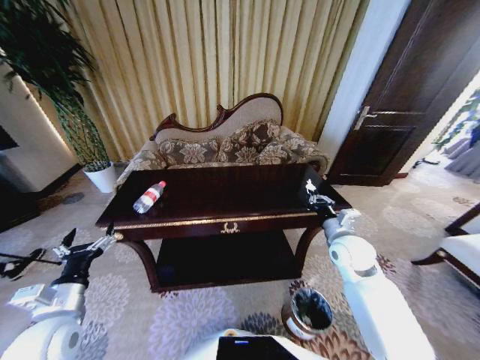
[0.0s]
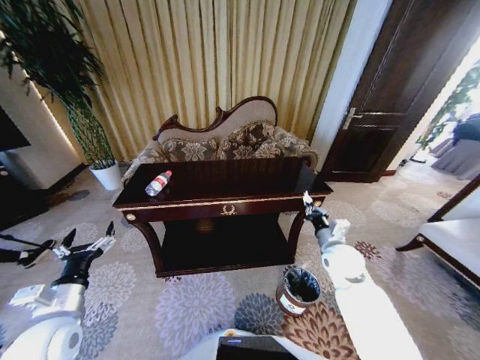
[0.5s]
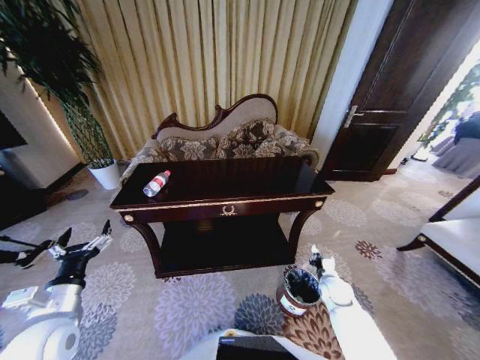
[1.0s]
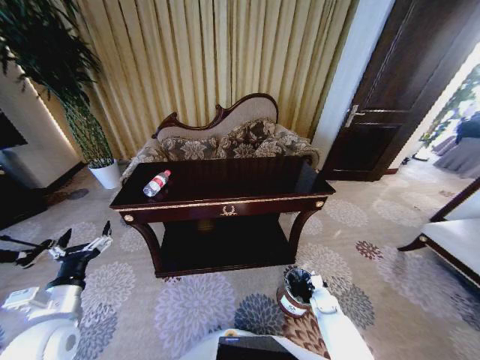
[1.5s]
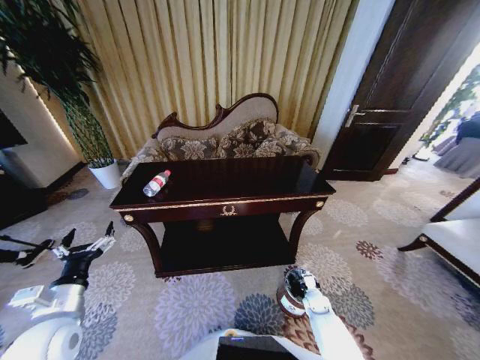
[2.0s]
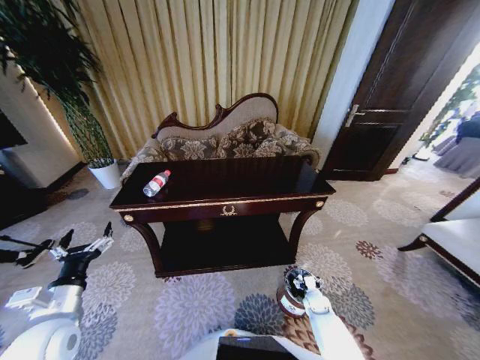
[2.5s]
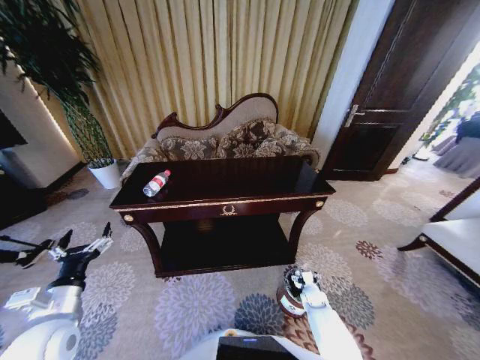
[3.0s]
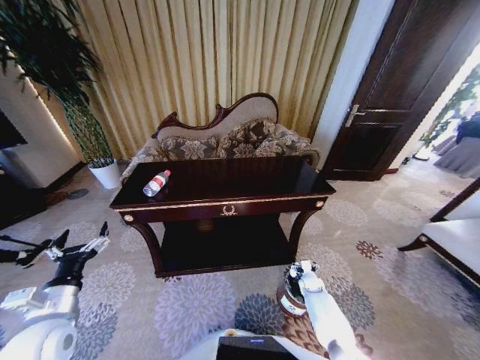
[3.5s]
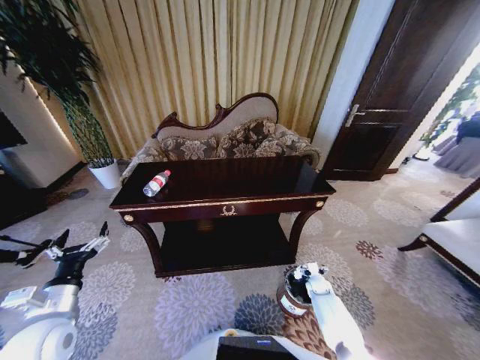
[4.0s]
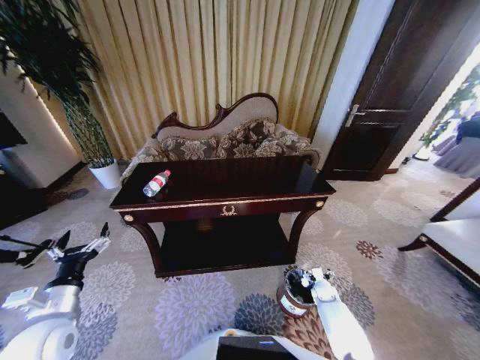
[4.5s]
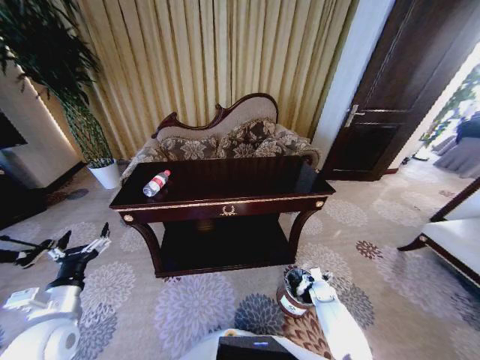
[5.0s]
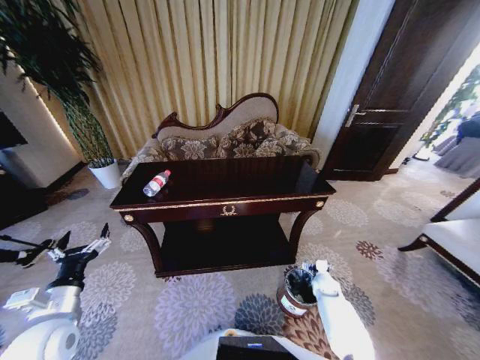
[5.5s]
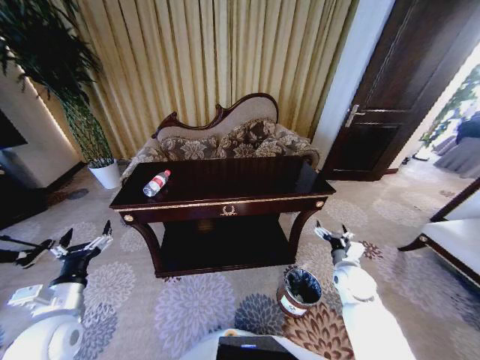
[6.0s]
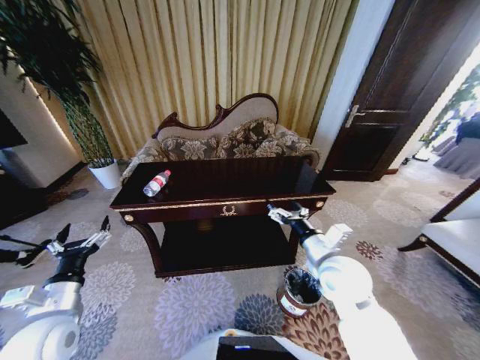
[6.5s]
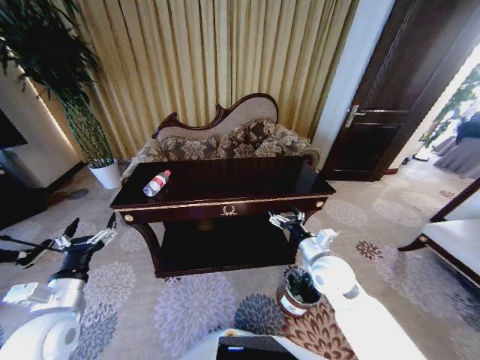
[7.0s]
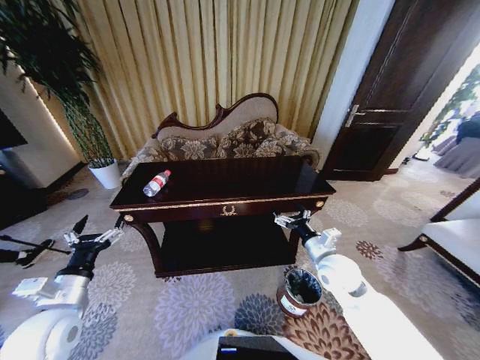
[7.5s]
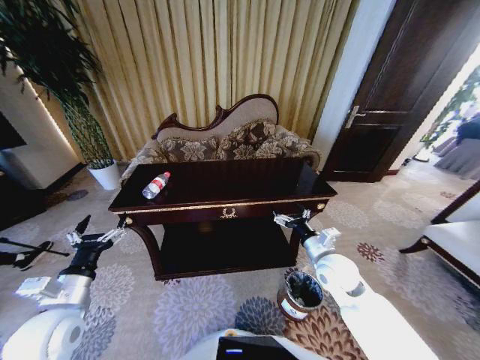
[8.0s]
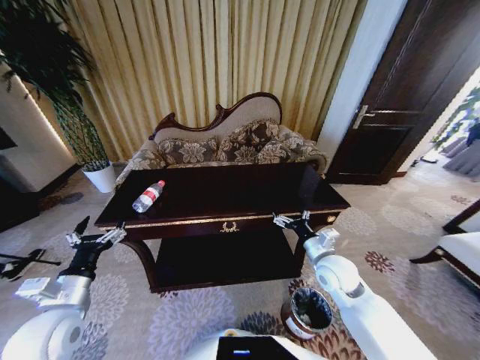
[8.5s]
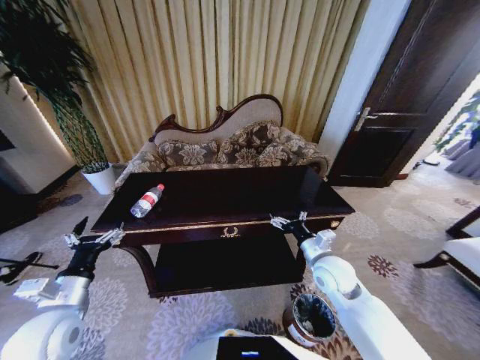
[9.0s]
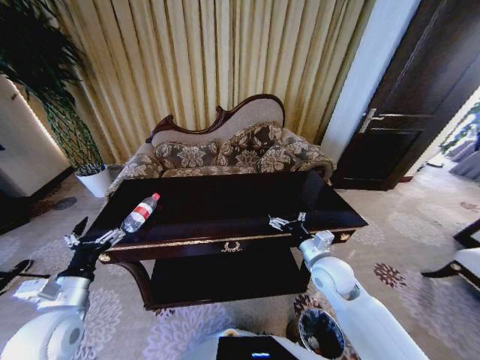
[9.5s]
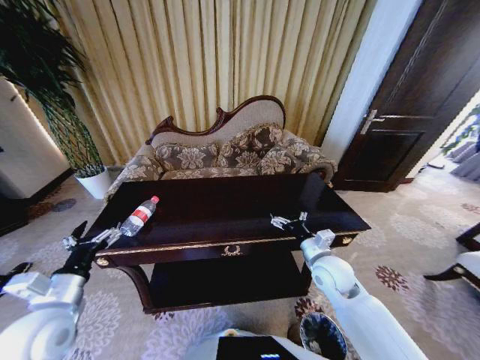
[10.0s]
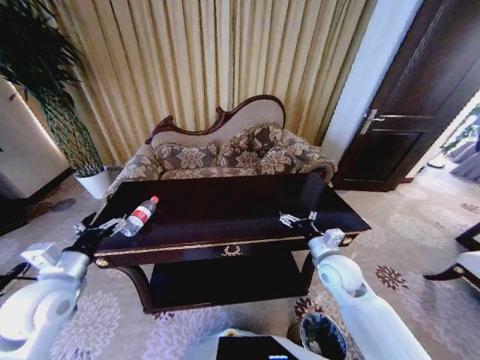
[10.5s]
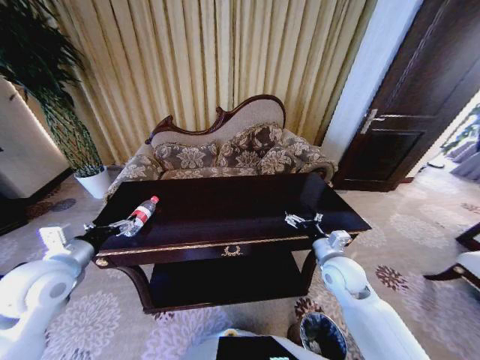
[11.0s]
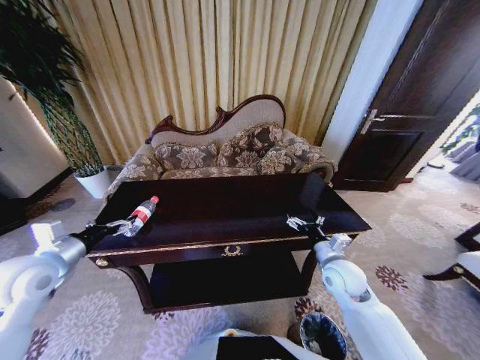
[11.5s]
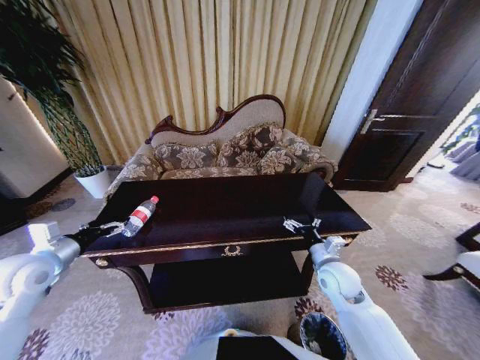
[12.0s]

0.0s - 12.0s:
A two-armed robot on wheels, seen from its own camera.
Task of the whole recording: Move to the front of the table and place the trash on the table into the trash bin.
0.0s - 2.0s: The right gripper heads downward, covering about 35 cm.
2.0s - 4.0s: The right gripper heads forward, covering about 5 cm, and opens up.
4.0s - 6.0s: The right gripper is displaced upward by approximately 20 cm.
6.0s - 8.0s: The right gripper goes approximately 15 cm to the left and upward.
10.0s - 12.0s: The left gripper heads forward and to the left, covering roughly 15 cm.

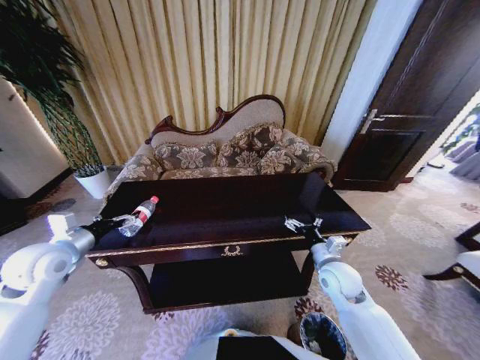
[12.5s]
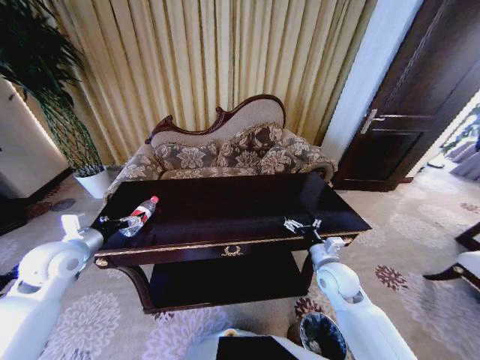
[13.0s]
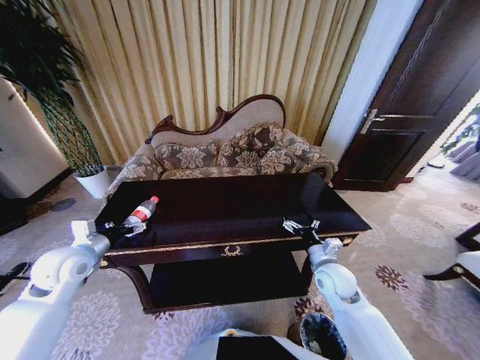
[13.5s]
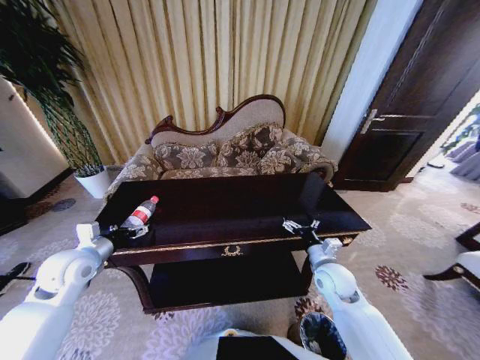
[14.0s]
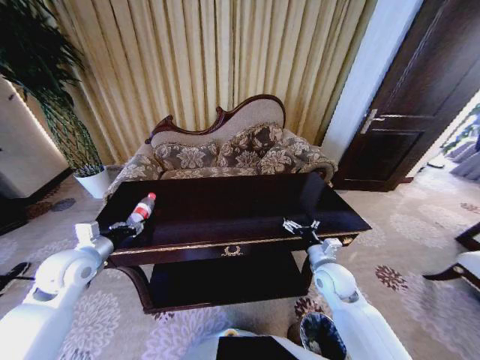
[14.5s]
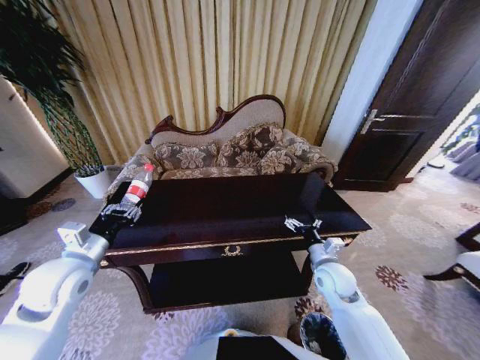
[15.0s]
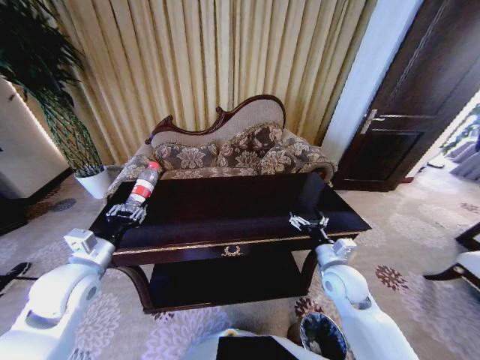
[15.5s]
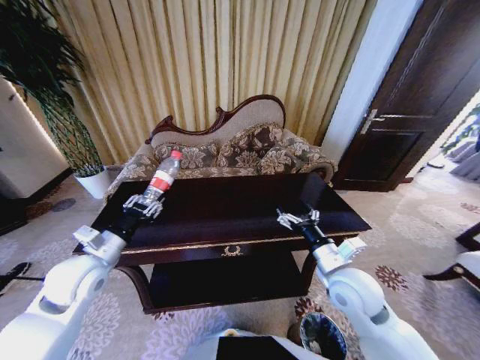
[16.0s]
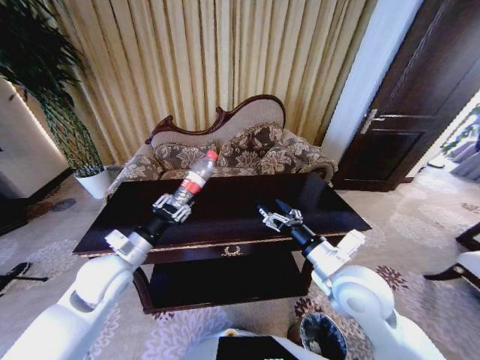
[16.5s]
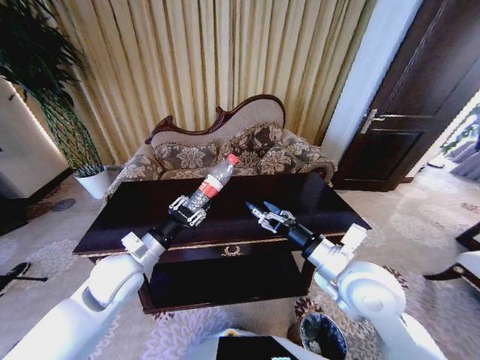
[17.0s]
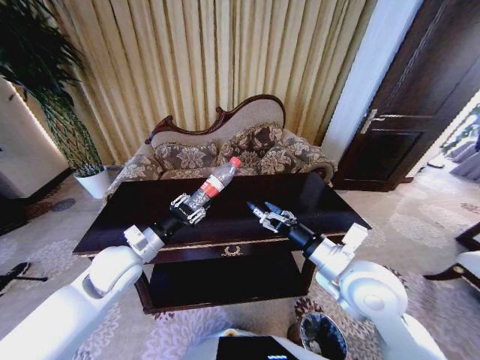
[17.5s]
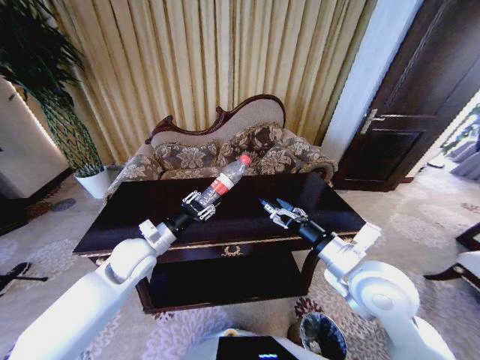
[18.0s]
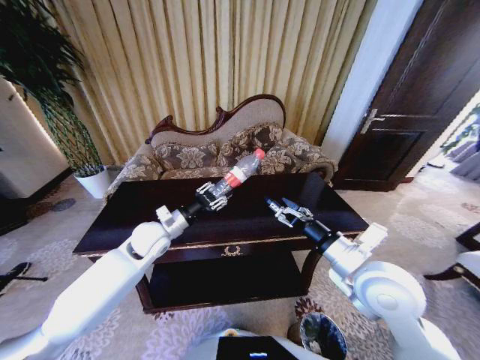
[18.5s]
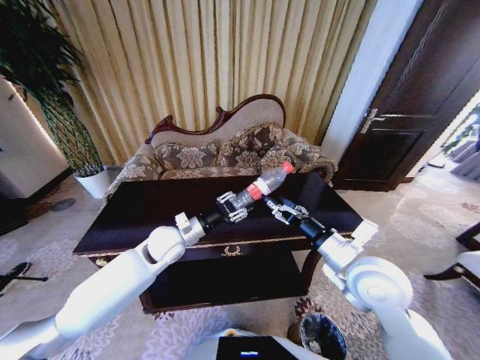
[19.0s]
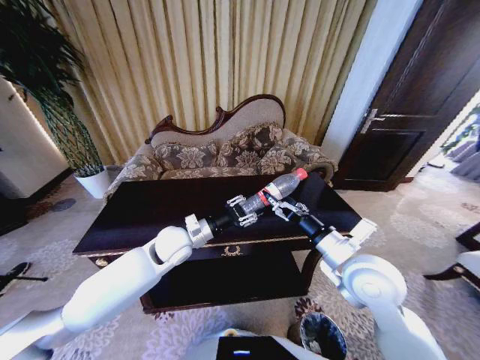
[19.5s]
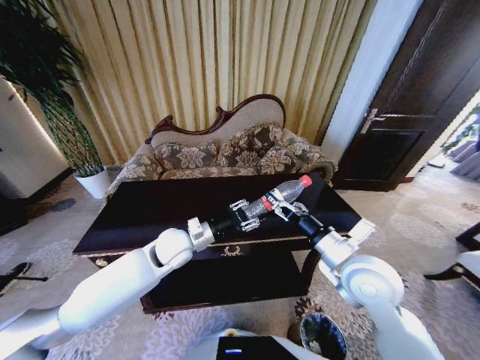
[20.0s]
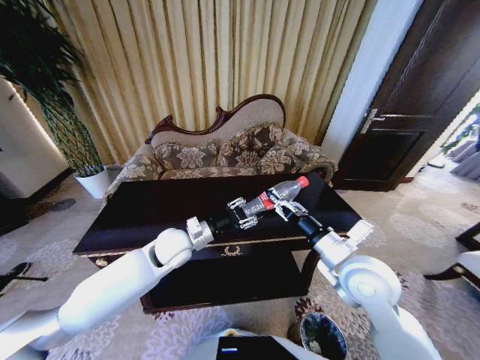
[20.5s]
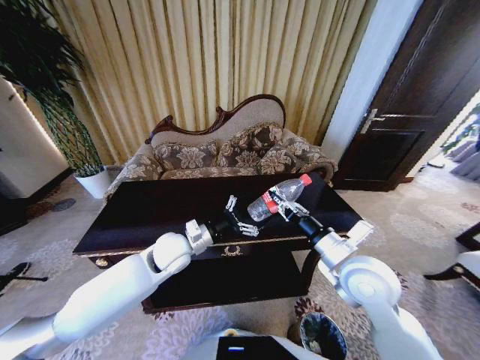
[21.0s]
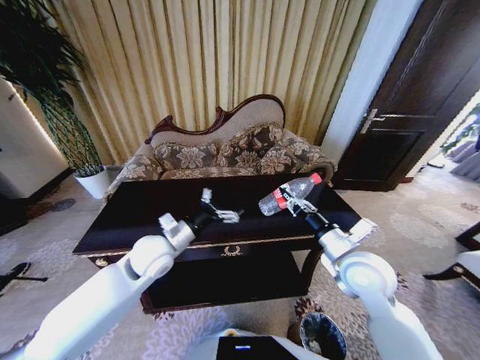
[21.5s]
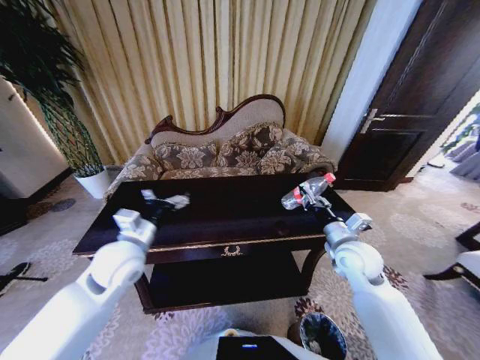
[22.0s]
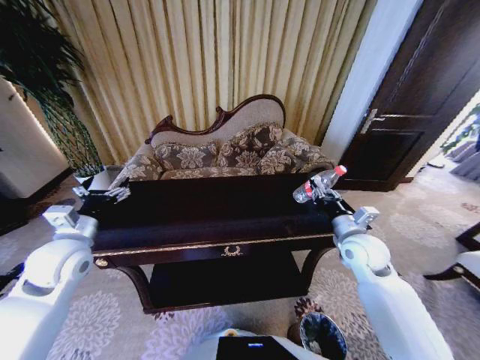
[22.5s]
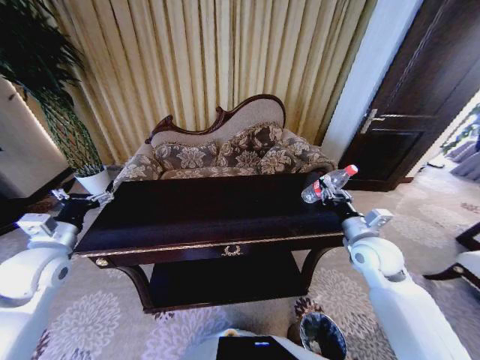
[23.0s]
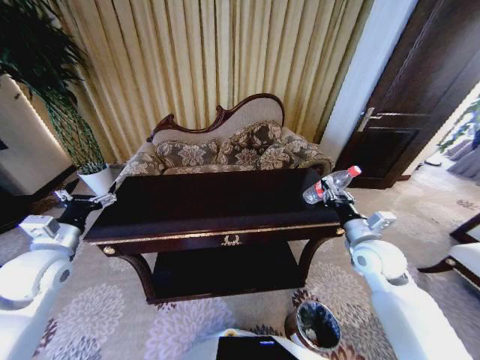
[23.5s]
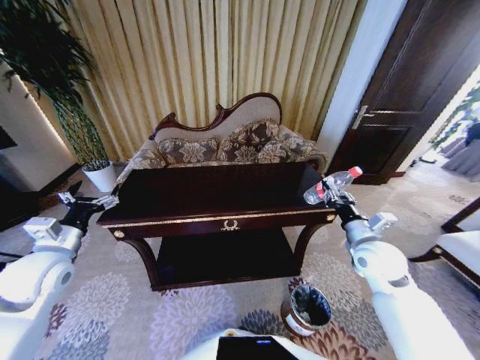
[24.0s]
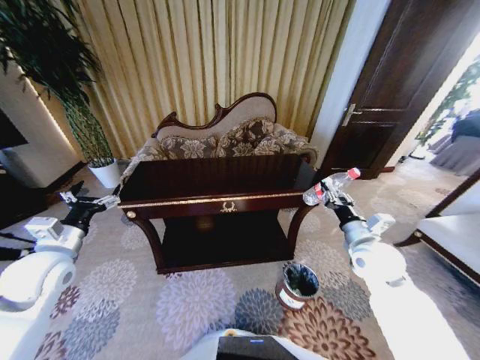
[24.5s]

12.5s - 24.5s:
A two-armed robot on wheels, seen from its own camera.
Task of the whole recording: Move to the front of the table and place the trash on the table into the trash bin.
12.5s - 14.5s: The left gripper closes up.
14.5s - 16.5s: The right gripper travels upward and backward by some 15 cm, while the left gripper travels to the right by roughly 10 cm.
16.5s - 18.5s: The left gripper moves forward and to the right, about 10 cm.
18.5s - 20.5s: The left gripper heads to the right, covering roughly 5 cm. Meanwhile the right gripper closes up.
20.5s - 22.5s: The right gripper travels forward, to the right and downward by some 15 cm. Meanwhile the left gripper moves to the left, about 20 cm, and opens up.

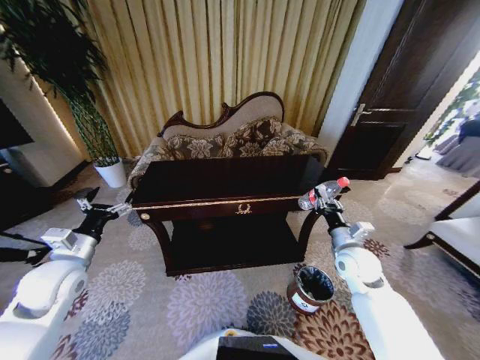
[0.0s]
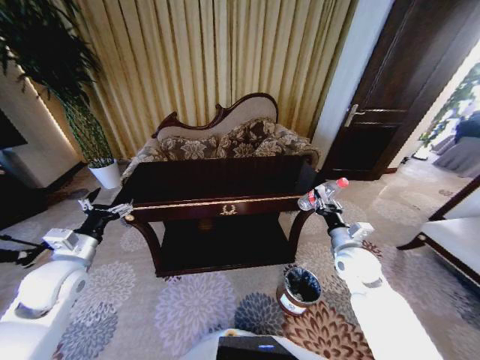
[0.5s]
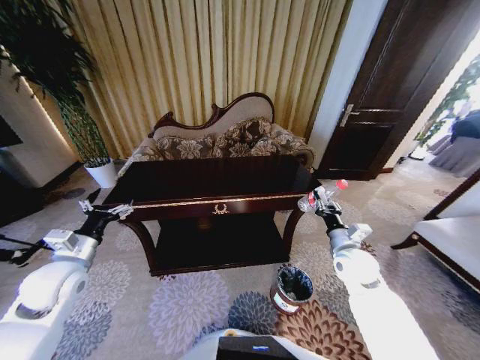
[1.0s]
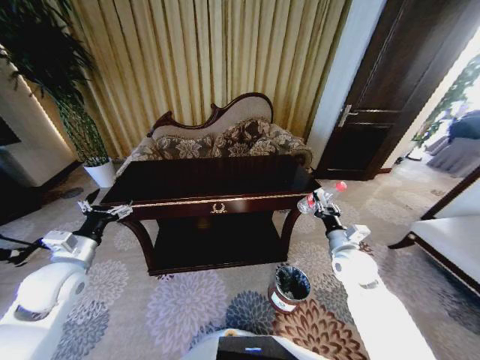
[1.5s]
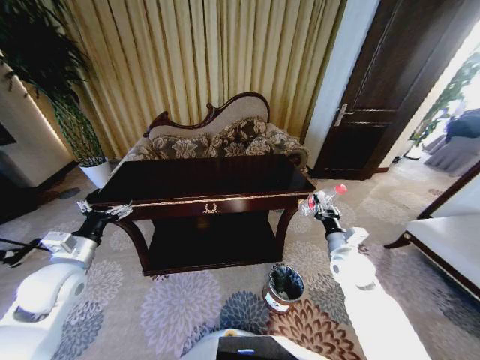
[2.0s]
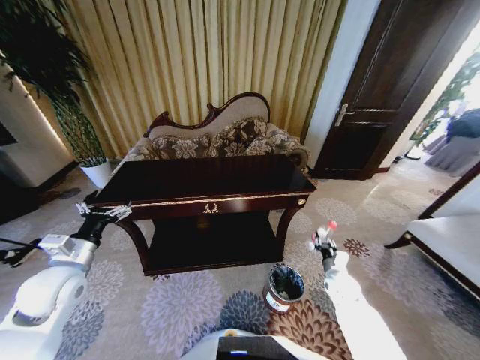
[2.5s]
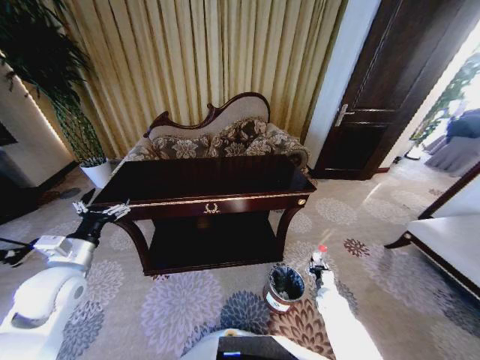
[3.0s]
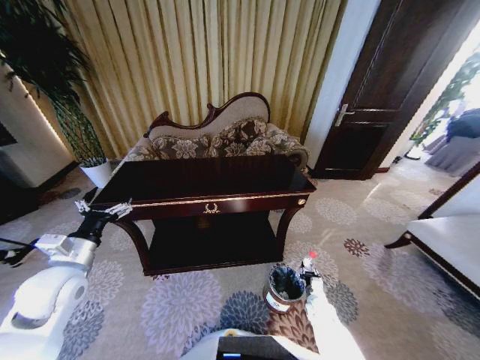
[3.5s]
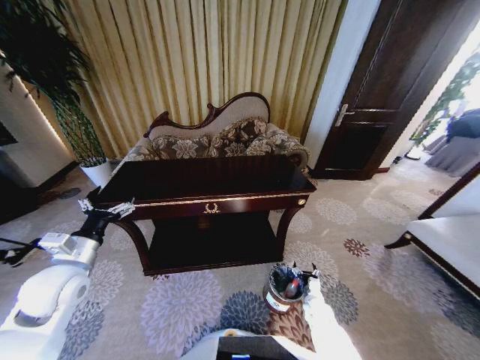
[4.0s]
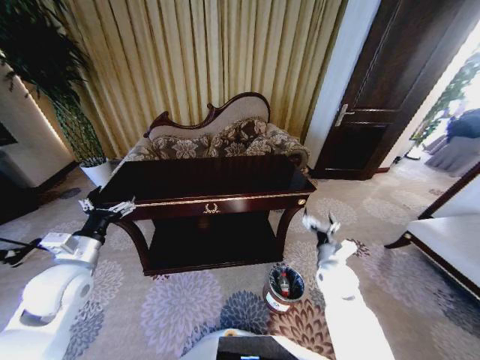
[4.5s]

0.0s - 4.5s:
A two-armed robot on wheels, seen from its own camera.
Task of the whole recording: Move to the front of the table and place the trash on the table into the trash bin.
2.0s - 4.5s: The right gripper goes downward and returns, some 25 cm each way, and opens up.
